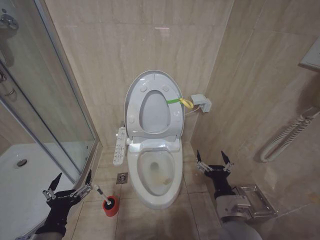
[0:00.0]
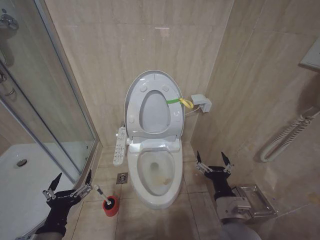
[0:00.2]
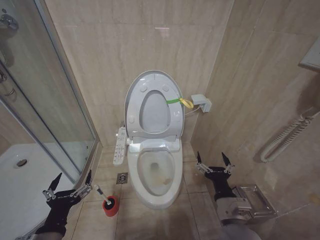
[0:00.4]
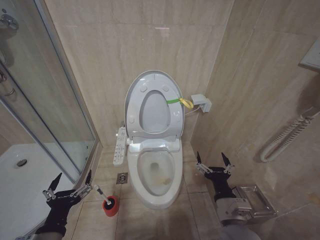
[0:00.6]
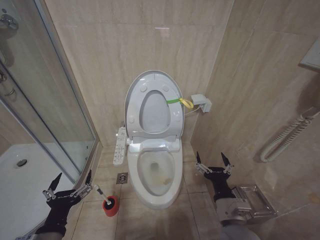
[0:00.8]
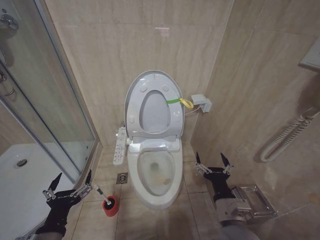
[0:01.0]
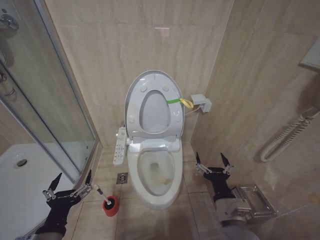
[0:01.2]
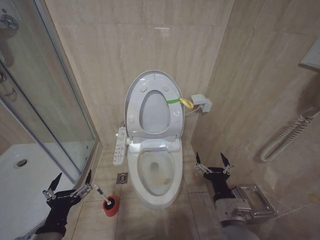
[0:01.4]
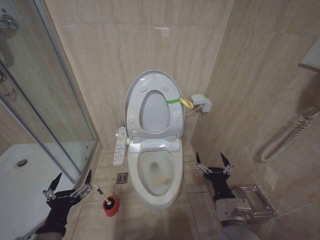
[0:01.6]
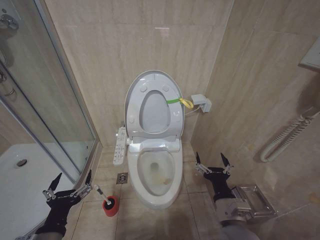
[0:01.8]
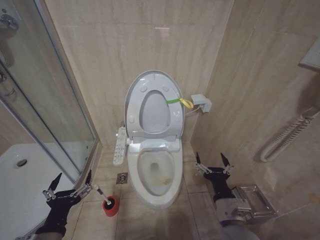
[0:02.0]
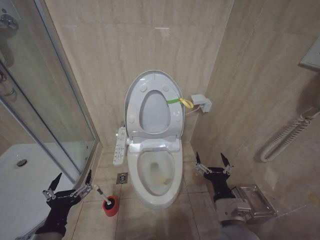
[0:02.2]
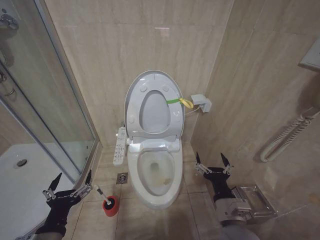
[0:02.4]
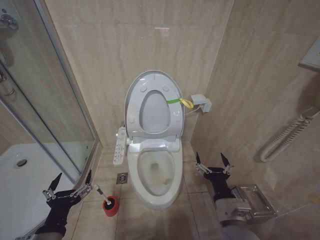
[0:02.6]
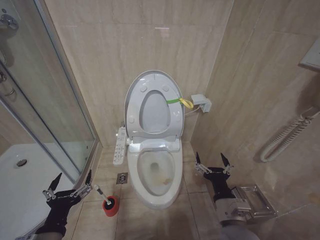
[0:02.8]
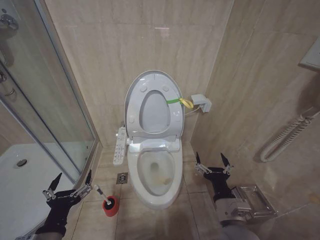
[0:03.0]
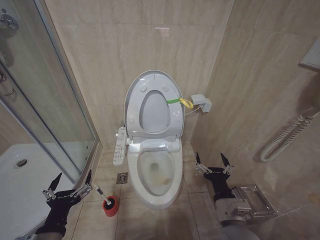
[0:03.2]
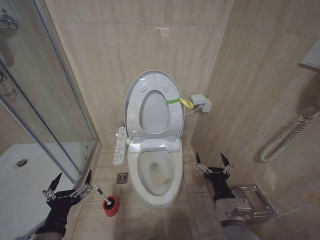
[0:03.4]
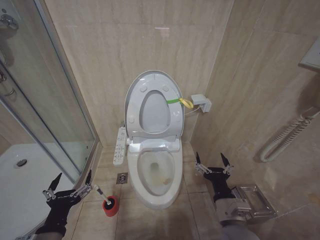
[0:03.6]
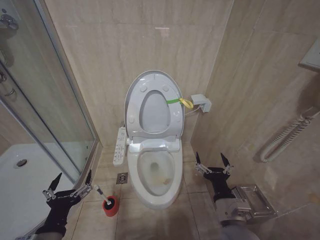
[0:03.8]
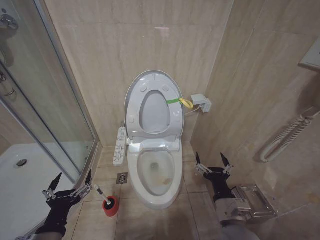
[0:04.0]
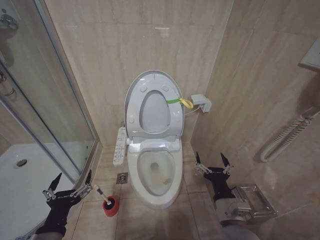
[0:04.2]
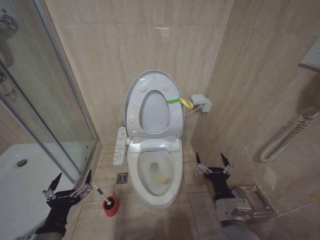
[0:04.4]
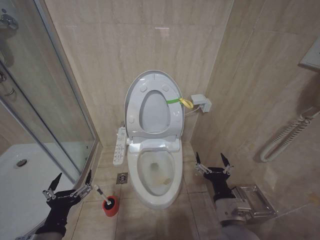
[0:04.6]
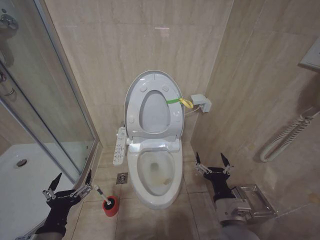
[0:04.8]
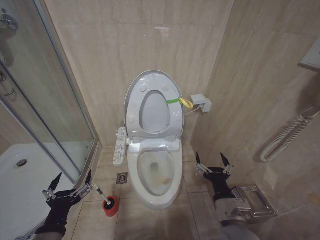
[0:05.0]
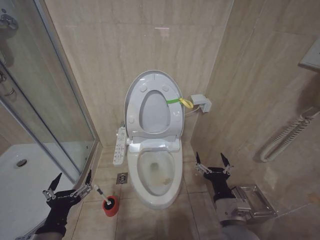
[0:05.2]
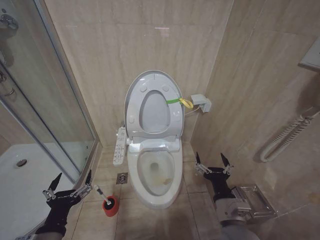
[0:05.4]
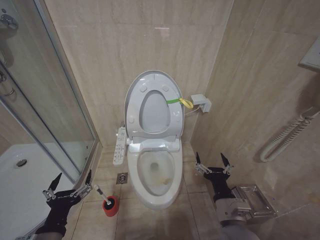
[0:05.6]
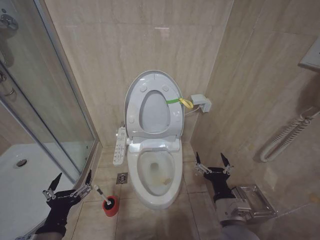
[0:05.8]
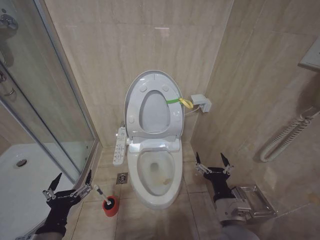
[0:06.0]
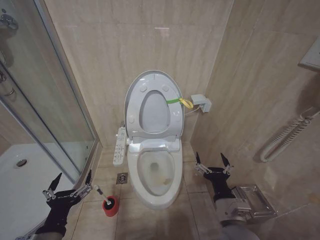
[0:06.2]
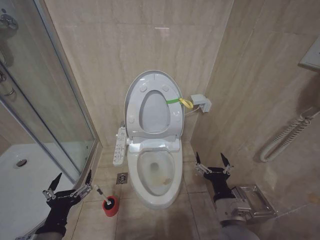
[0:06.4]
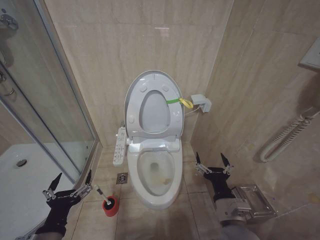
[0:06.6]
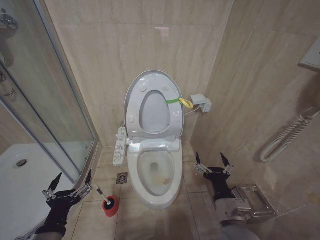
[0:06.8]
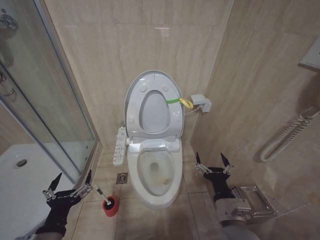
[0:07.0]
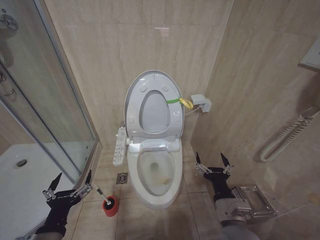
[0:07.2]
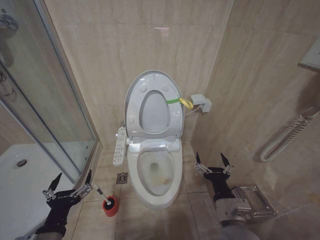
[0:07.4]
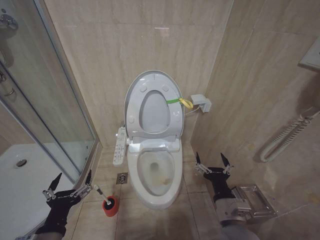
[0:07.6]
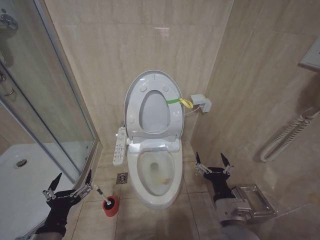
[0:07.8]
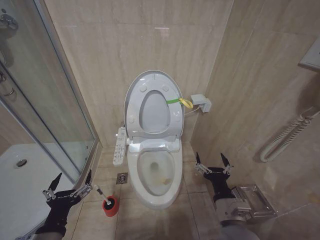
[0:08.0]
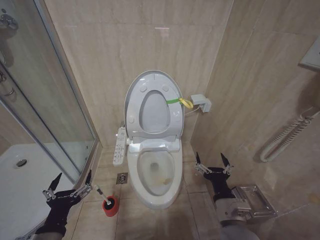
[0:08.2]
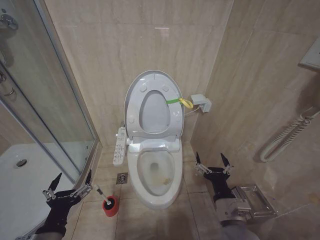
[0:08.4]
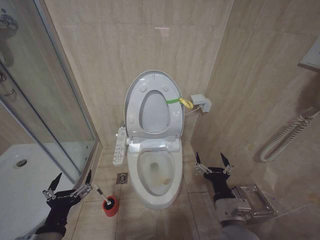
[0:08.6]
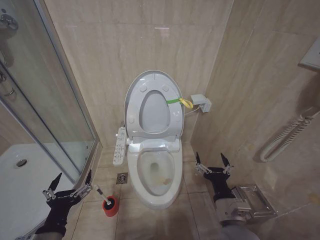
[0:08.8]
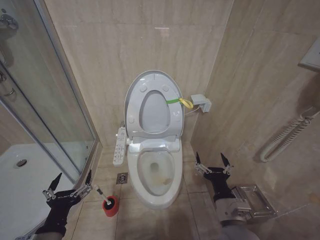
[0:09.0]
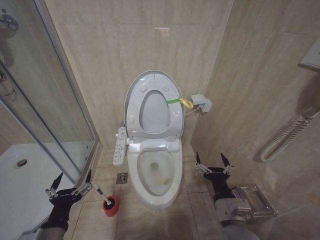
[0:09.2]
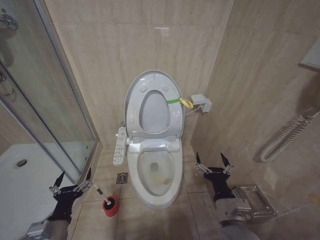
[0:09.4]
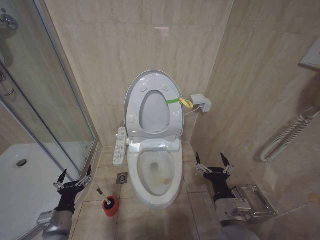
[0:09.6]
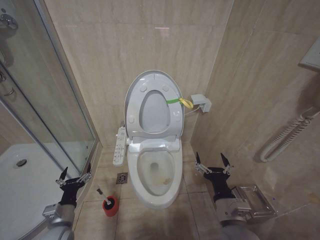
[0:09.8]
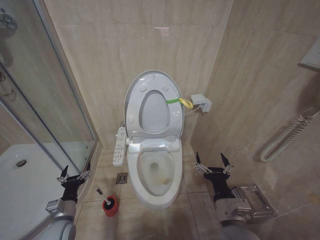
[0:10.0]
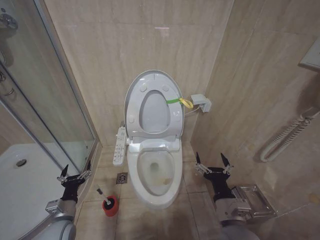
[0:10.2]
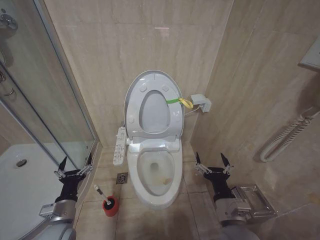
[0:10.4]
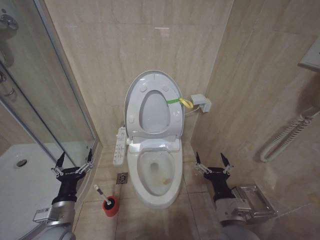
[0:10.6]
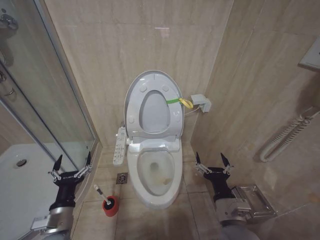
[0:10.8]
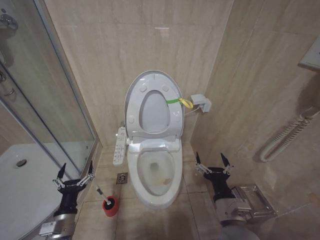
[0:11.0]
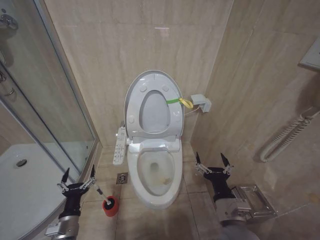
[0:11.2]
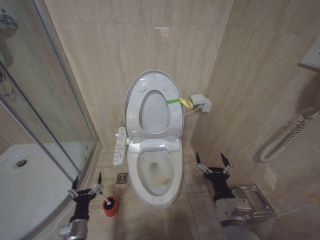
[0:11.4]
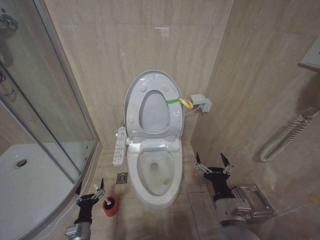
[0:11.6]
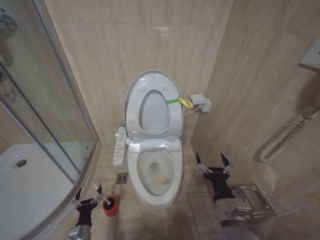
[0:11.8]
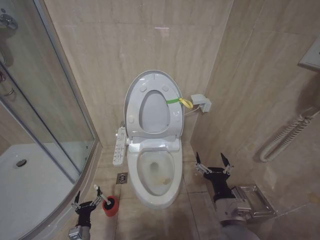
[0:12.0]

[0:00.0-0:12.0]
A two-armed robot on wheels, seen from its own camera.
Task of the whole recording: Open the toilet lid, clean the toilet bowl with a toilet brush, close the toilet lid, and flush.
0:01.6 to 0:09.0: Both grippers stay about where they are.
0:09.0 to 0:10.4: The left gripper travels forward and downward by about 15 cm.
0:10.4 to 0:12.0: The left gripper travels downward by about 20 cm.

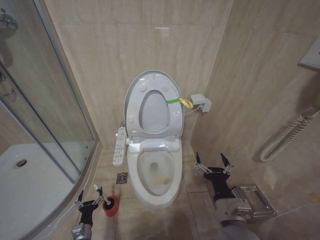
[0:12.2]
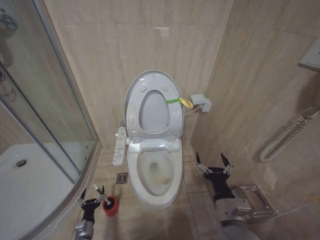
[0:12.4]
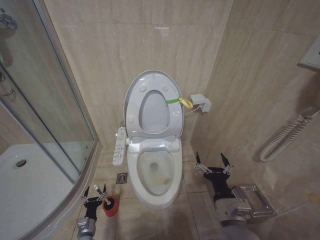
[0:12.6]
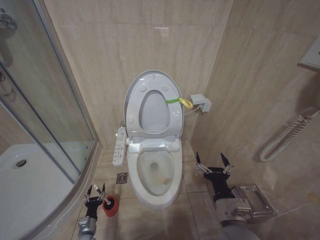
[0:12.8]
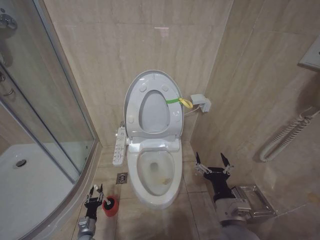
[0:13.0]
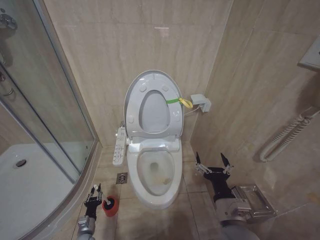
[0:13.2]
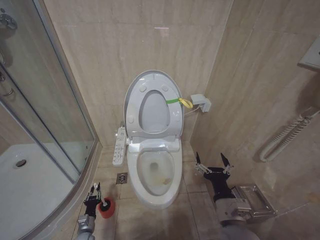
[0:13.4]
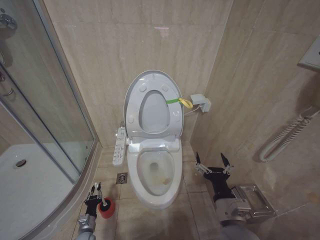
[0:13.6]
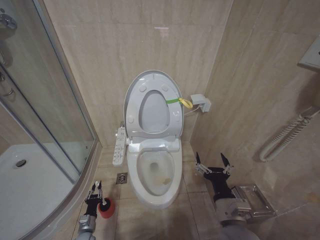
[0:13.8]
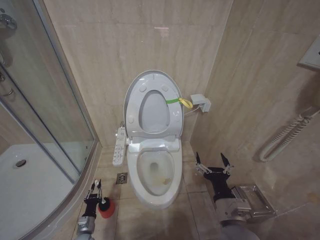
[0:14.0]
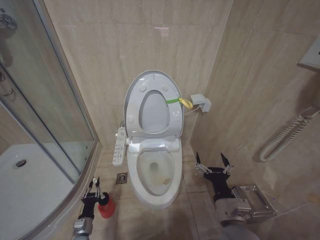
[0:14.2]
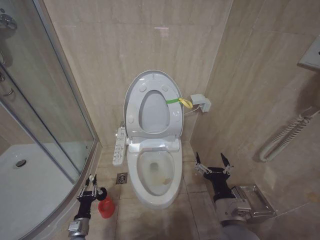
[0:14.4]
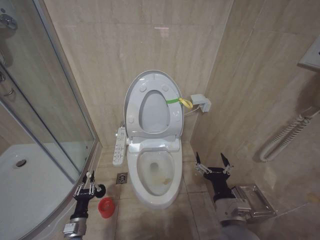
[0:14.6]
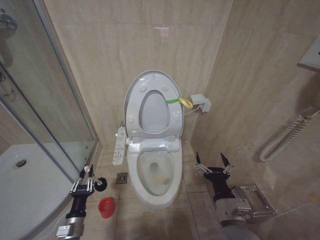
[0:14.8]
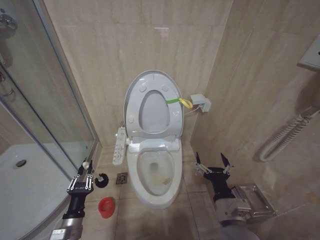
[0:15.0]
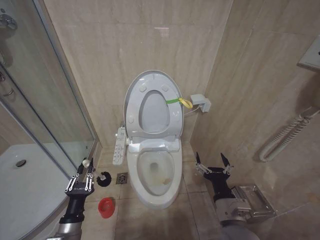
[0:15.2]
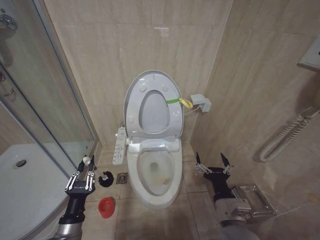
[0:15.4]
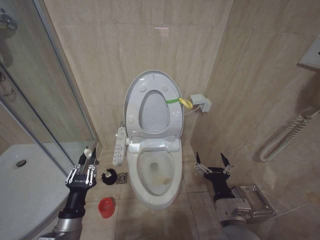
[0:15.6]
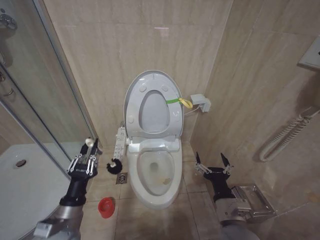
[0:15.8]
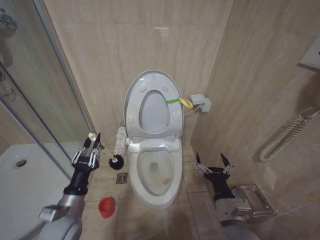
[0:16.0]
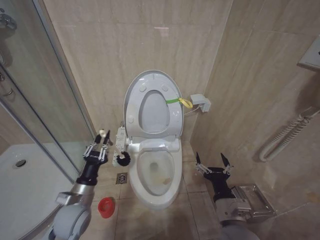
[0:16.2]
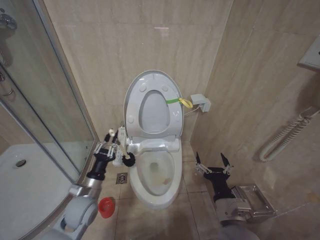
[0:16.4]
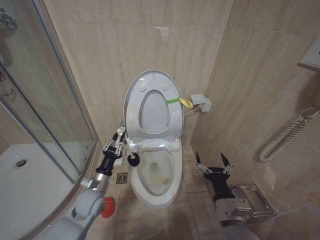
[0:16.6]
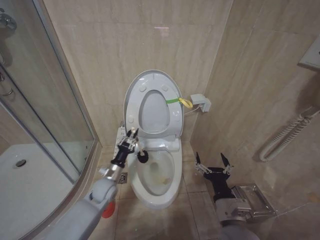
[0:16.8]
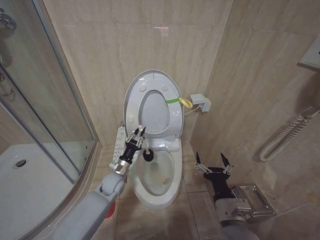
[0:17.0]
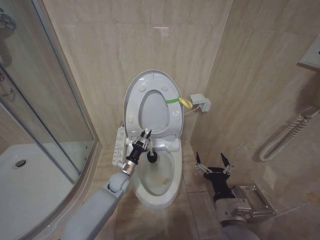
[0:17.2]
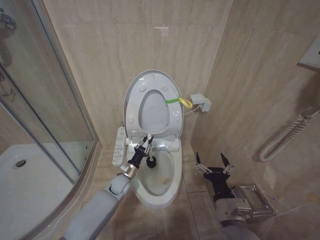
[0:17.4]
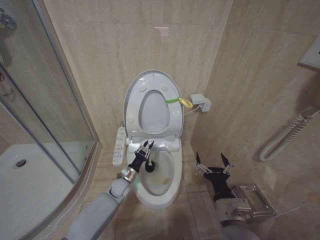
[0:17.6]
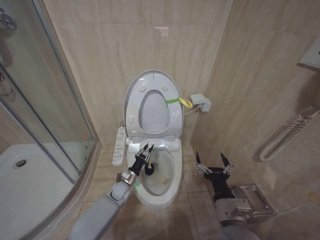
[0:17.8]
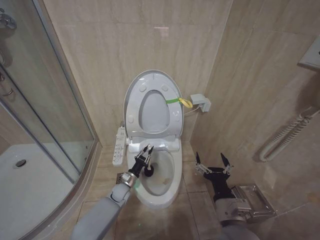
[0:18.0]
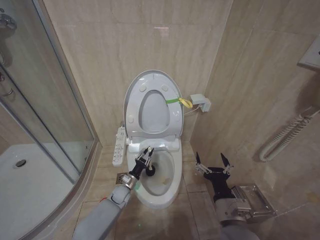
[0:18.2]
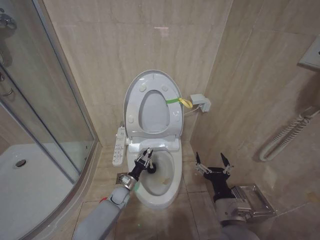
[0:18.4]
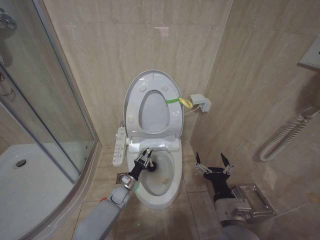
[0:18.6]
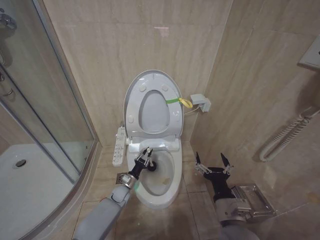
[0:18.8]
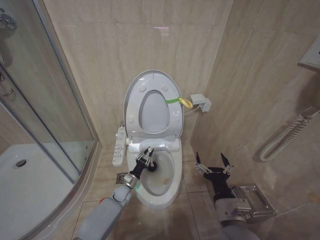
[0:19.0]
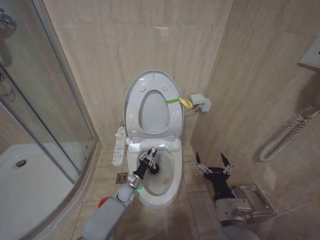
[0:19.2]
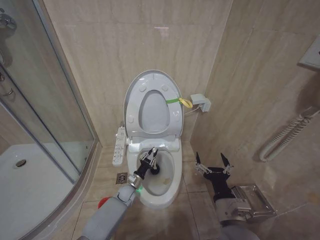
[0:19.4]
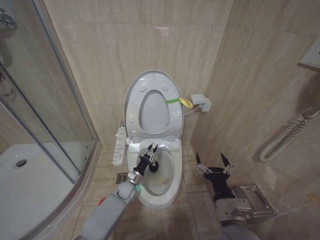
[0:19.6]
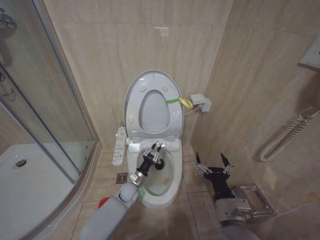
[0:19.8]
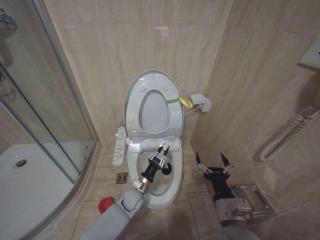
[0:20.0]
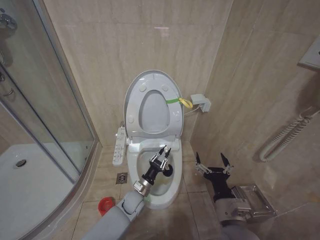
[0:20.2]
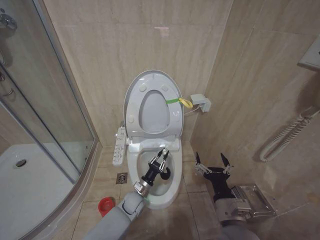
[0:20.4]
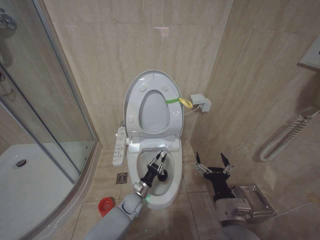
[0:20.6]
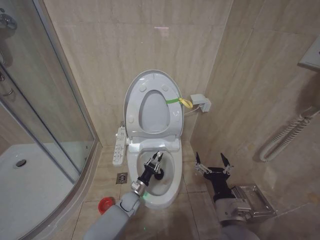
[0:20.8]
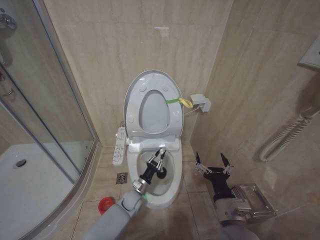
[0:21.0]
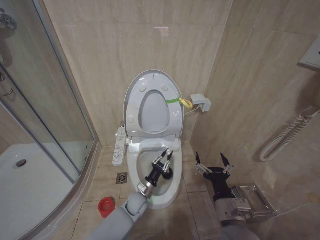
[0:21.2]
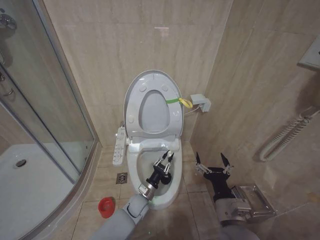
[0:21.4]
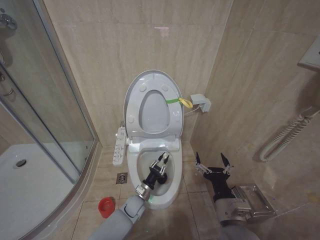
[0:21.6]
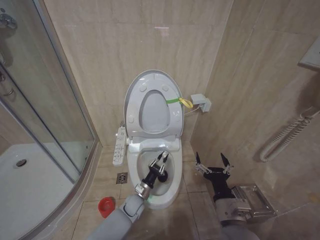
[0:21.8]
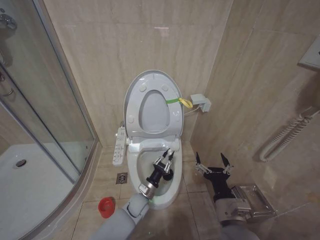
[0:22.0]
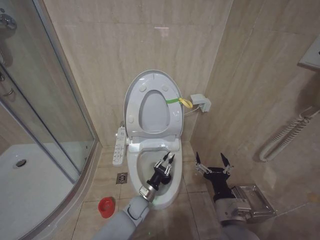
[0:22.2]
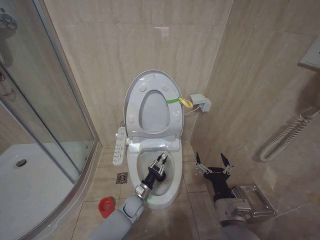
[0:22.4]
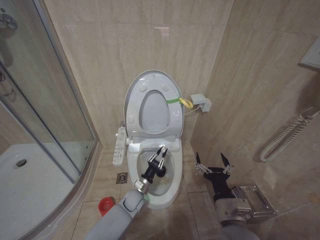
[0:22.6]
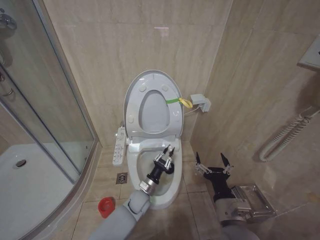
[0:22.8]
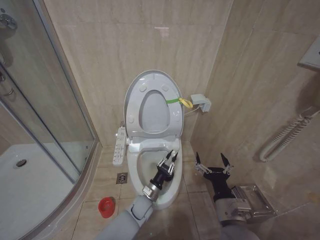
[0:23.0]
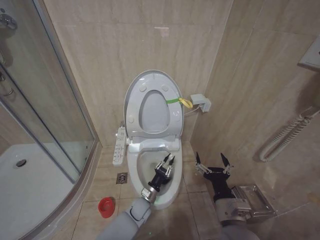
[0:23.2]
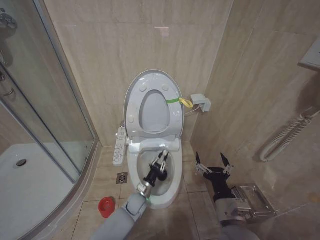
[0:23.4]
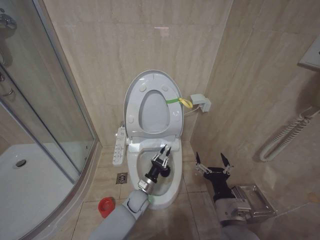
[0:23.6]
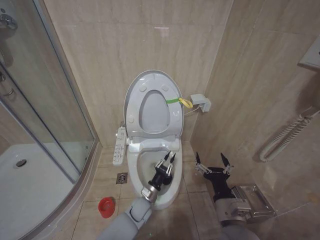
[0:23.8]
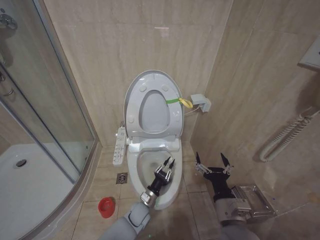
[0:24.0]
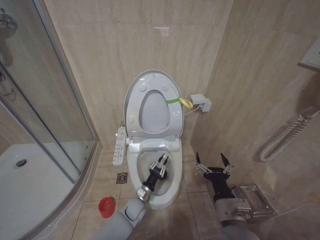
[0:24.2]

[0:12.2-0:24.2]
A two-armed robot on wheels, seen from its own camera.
Task of the whole recording: Open the toilet lid, clean the toilet bowl with a toilet brush, close the toilet lid, and flush.
0:12.2 to 0:13.8: The left gripper changes place by roughly 5 cm, and closes up.
0:13.8 to 0:15.2: The left gripper heads upward, covering about 25 cm.
0:15.2 to 0:16.6: The left gripper heads forward, covering about 15 cm.
0:16.6 to 0:18.2: The left gripper goes about 20 cm downward, forward and to the right.
0:18.2 to 0:19.8: The grippers stay close to where they were, moving slightly.
0:19.8 to 0:21.2: The left gripper shifts about 5 cm backward.
0:21.2 to 0:22.6: There are only small adjustments of the grippers.
0:22.6 to 0:24.2: The left gripper goes up and down, about 5 cm each way, reversing 3 times.
